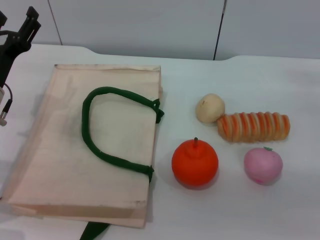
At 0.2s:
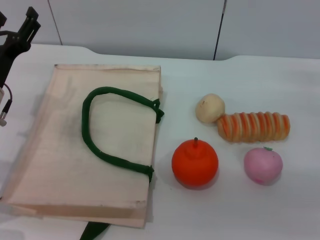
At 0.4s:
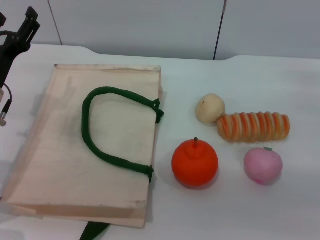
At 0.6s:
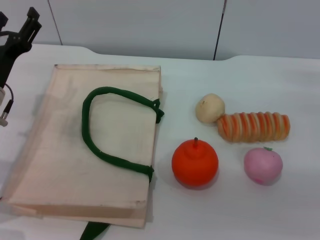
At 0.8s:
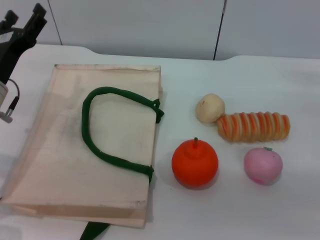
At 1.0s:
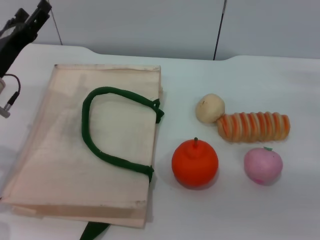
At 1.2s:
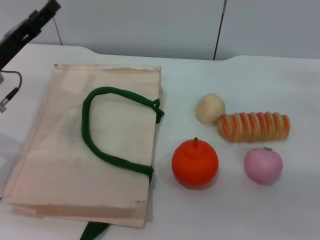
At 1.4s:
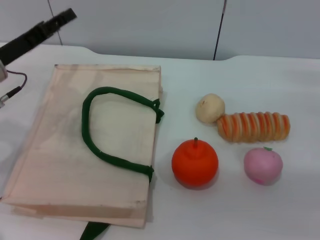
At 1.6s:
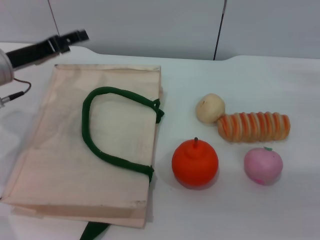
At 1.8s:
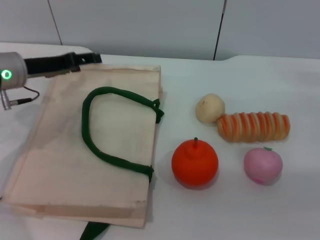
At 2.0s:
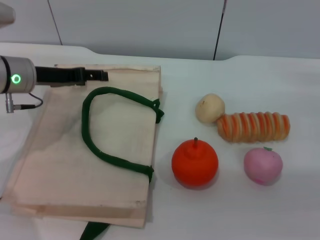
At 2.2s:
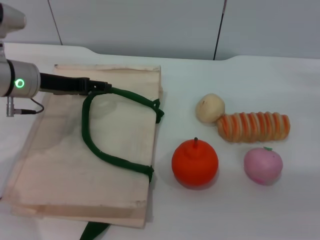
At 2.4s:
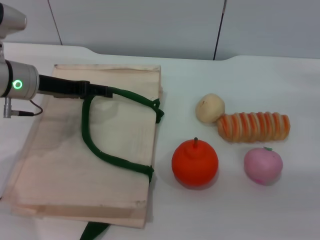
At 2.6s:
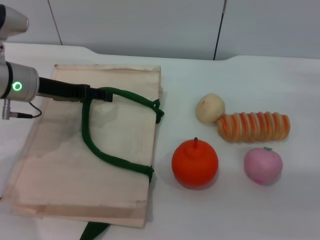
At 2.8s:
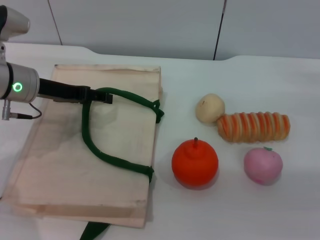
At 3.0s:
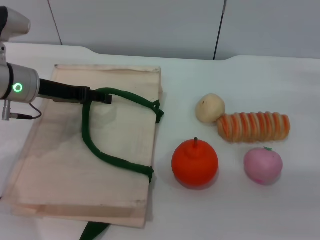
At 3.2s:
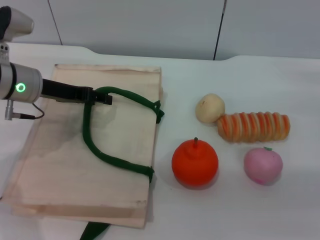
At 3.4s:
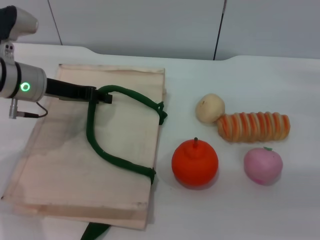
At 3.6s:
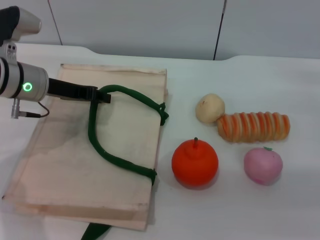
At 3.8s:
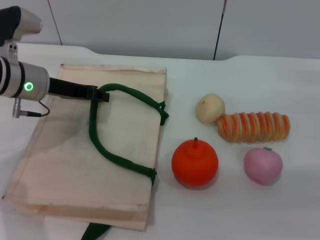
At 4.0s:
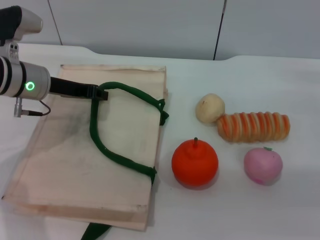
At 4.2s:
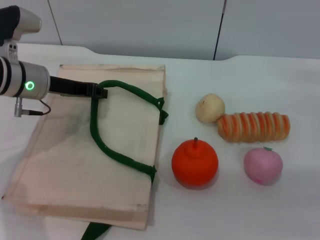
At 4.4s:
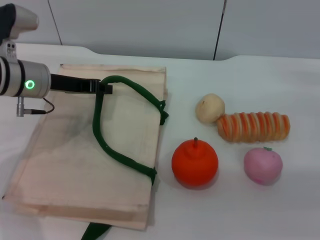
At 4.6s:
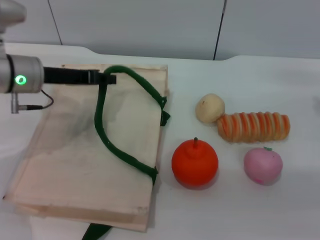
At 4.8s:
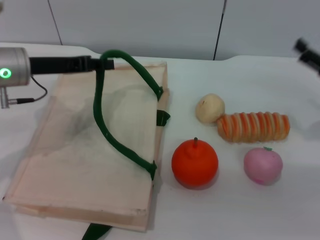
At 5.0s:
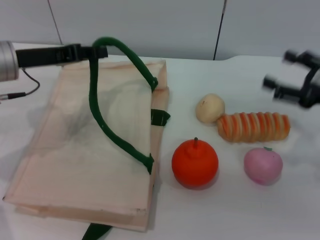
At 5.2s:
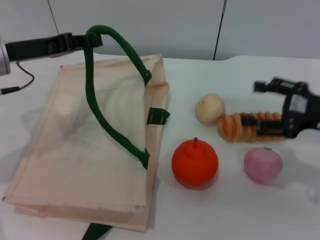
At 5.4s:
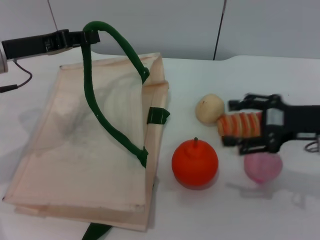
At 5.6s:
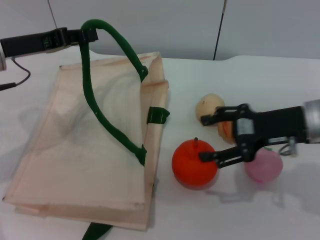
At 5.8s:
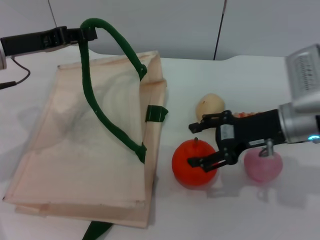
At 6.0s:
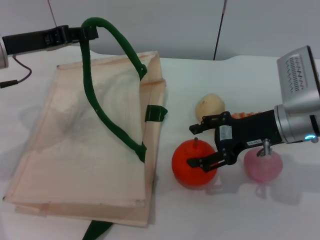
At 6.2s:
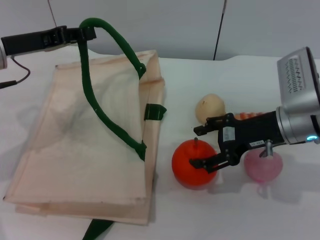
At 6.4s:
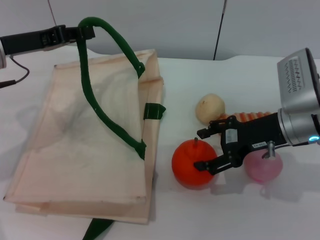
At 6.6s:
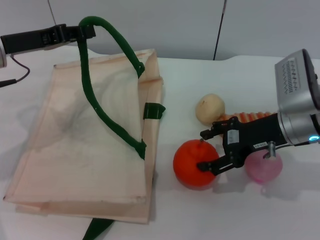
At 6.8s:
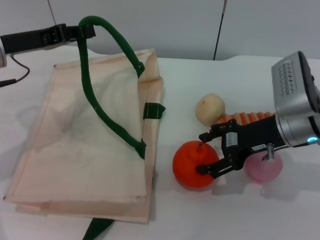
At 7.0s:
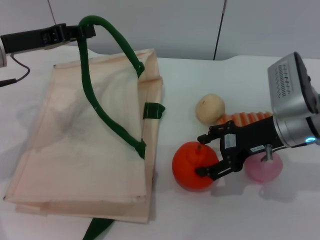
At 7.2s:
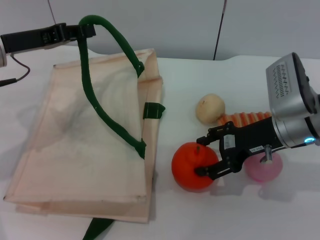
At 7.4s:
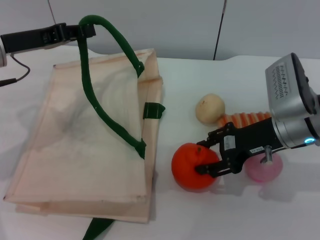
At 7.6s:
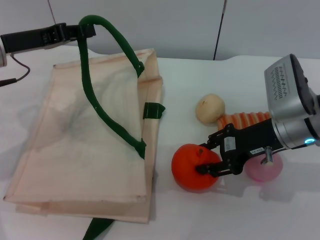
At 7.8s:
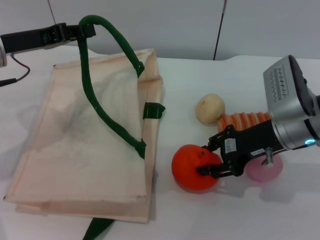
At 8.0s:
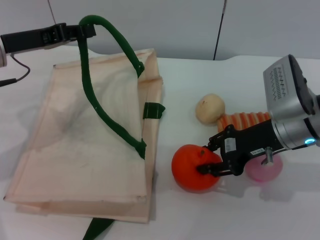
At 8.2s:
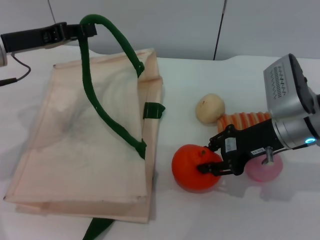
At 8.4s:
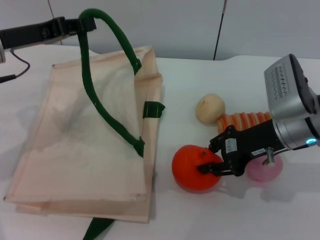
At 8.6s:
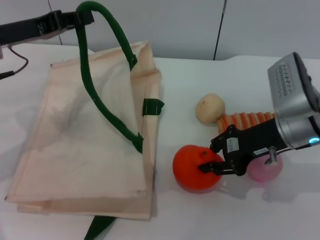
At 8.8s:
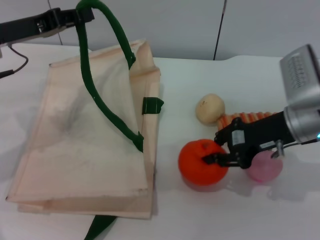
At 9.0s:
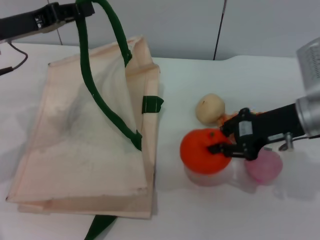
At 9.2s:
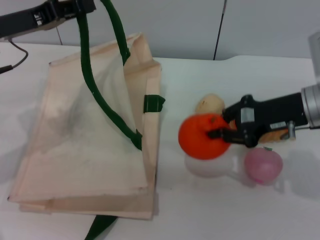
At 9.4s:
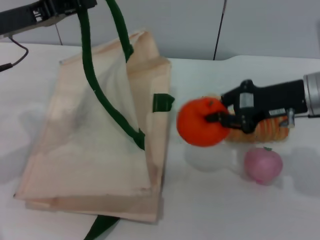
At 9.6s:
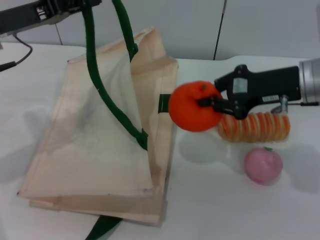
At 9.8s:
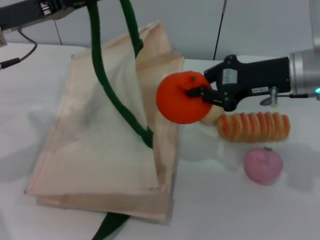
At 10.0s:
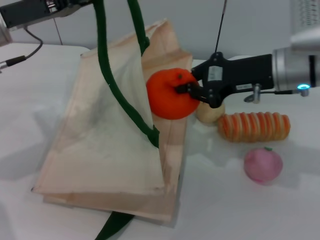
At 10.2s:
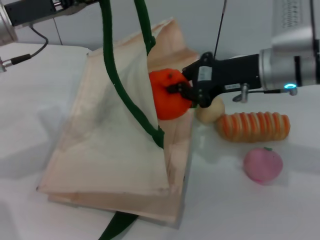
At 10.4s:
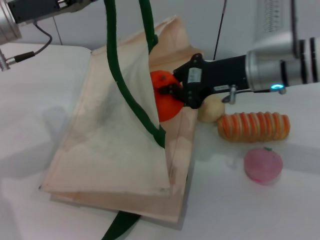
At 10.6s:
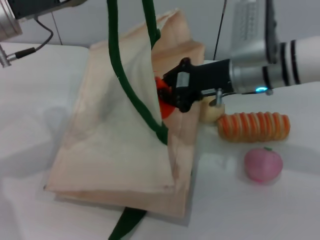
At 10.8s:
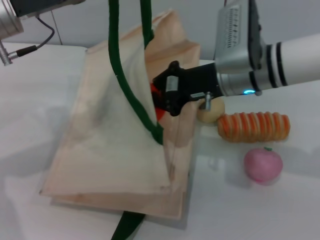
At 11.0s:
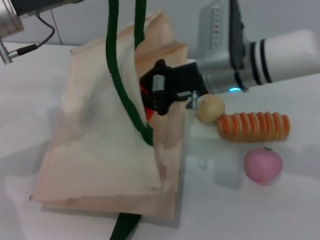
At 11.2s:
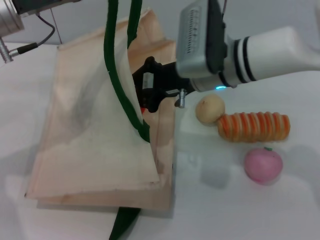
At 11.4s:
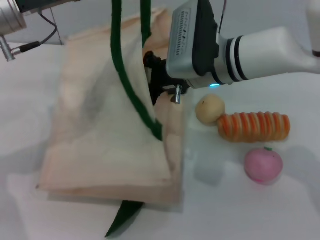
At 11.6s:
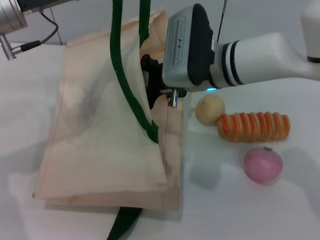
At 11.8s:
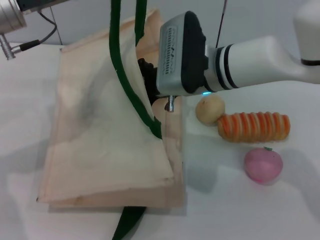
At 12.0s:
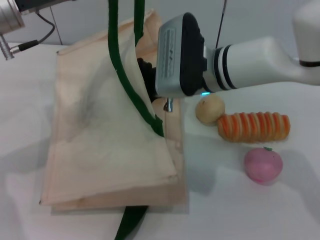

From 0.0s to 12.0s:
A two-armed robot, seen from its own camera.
Task of the whole recording: pick up the orange and peach from the table and place it in the white handbag.
Step, from 0.0s to 4.6s: Lift the woven bag with the left gripper to open it.
Step, from 4.8s to 9.0s: Pick up the orange with the right gripper.
From 0.0s to 1.6s: The left gripper changes place by approximately 5 cm.
From 3.0s to 4.4s: The left gripper closes up.
From 4.4s to 6.0s: The left gripper moves about 5 cm, while the right gripper is displaced to the left by some 15 cm.
From 6.0s to 7.6s: The grippers move only a little.
From 7.6s to 9.0s: The right gripper closes up.
From 9.0s to 10.4s: The right gripper shifts approximately 5 cm to the left.
From 10.4s to 12.0s: The right gripper goes approximately 10 cm to the left.

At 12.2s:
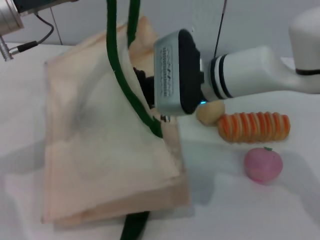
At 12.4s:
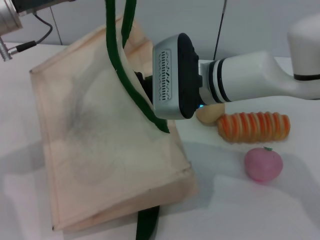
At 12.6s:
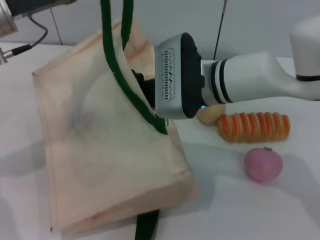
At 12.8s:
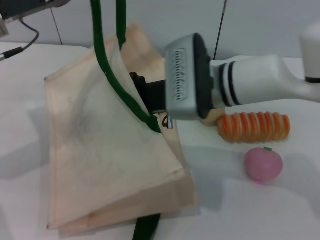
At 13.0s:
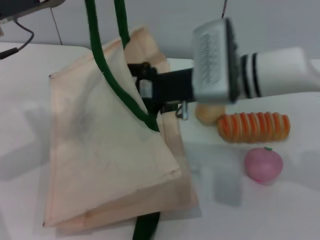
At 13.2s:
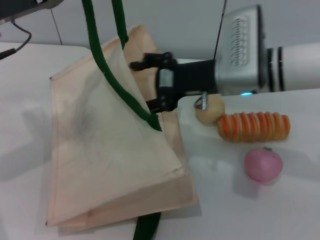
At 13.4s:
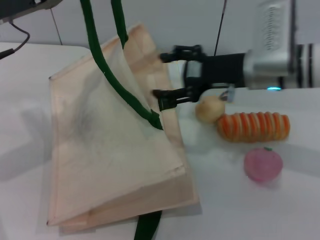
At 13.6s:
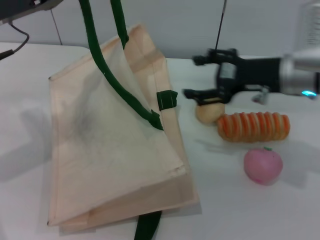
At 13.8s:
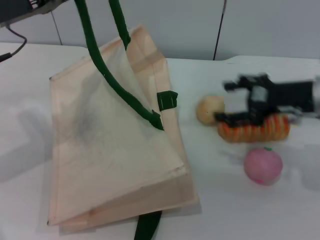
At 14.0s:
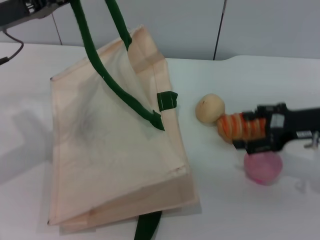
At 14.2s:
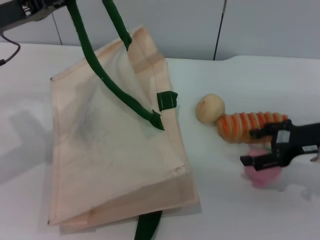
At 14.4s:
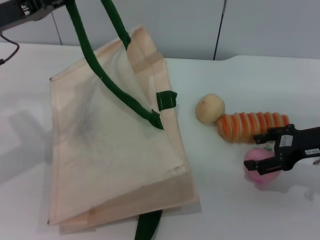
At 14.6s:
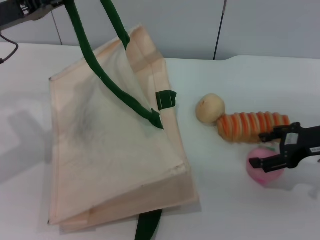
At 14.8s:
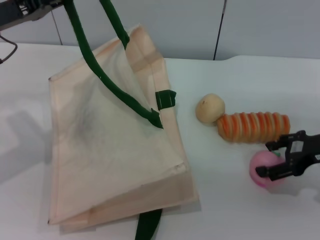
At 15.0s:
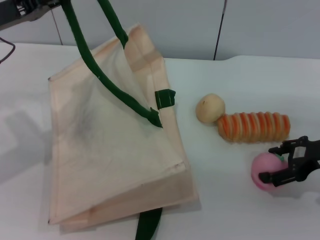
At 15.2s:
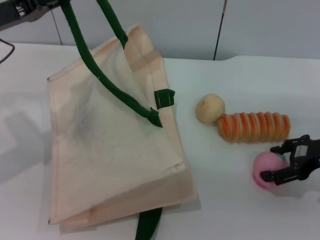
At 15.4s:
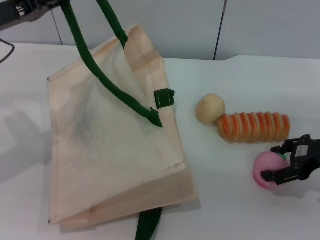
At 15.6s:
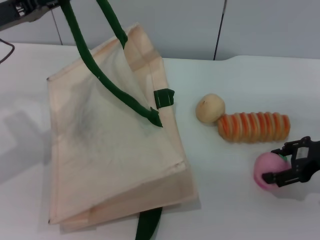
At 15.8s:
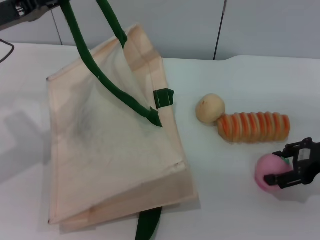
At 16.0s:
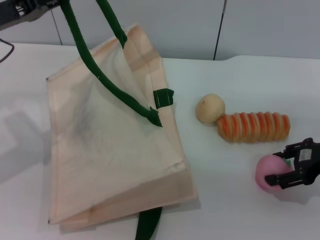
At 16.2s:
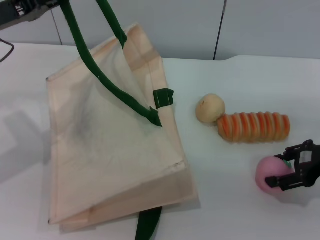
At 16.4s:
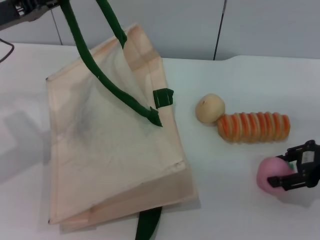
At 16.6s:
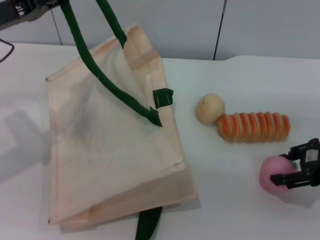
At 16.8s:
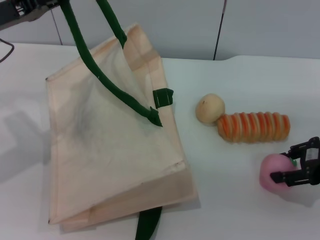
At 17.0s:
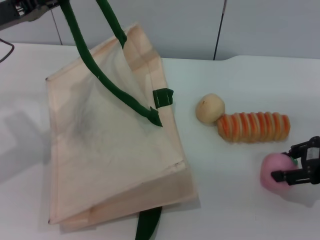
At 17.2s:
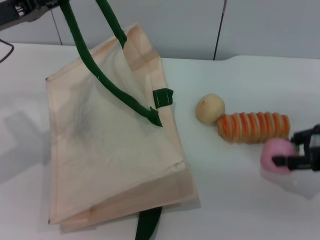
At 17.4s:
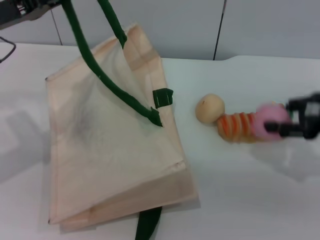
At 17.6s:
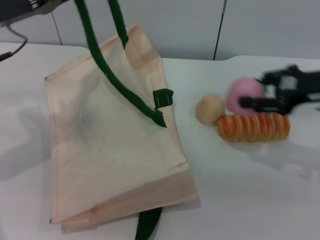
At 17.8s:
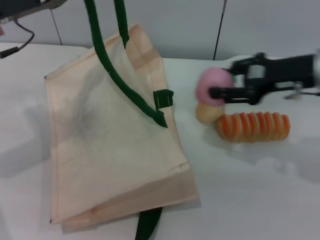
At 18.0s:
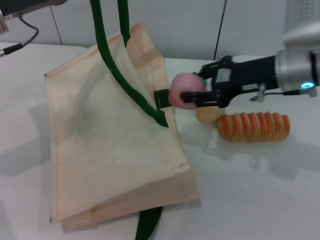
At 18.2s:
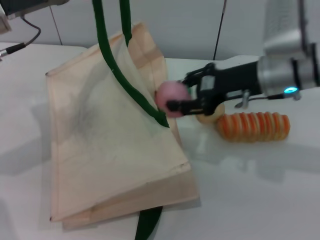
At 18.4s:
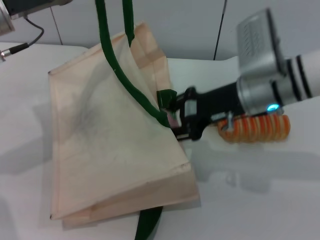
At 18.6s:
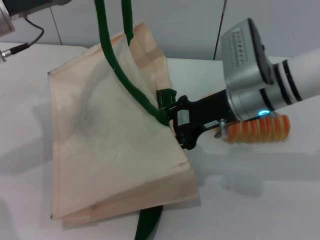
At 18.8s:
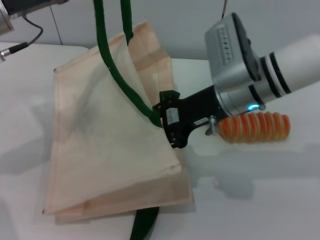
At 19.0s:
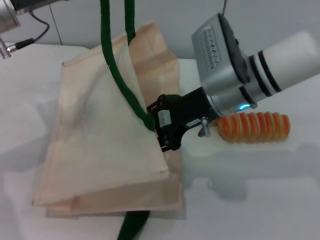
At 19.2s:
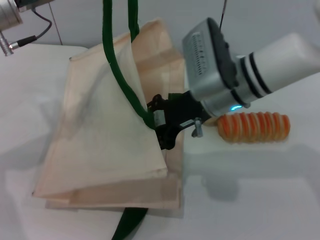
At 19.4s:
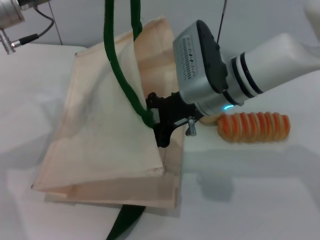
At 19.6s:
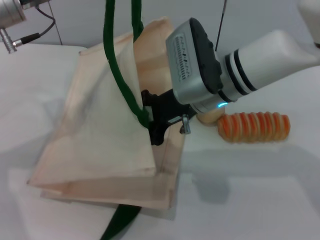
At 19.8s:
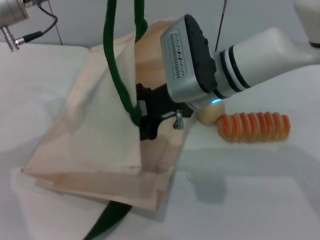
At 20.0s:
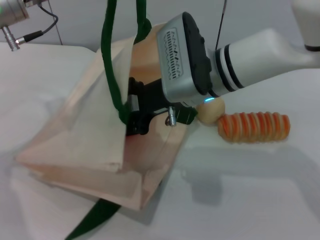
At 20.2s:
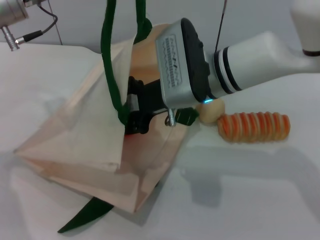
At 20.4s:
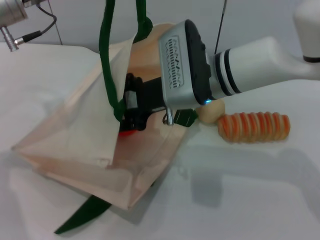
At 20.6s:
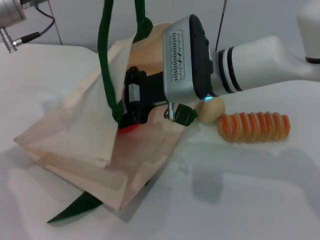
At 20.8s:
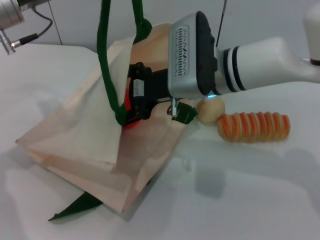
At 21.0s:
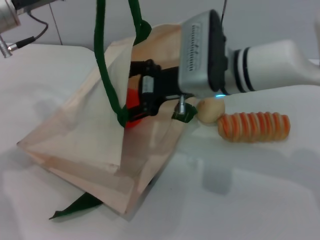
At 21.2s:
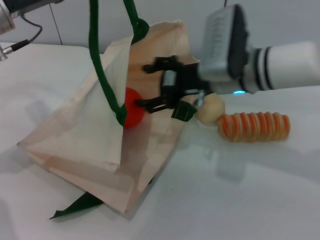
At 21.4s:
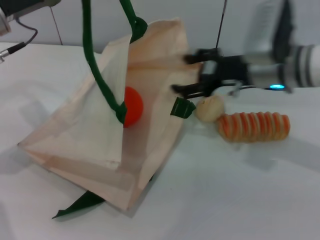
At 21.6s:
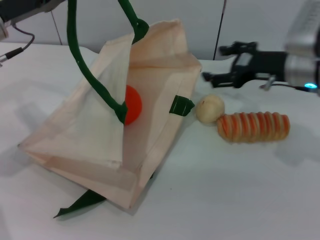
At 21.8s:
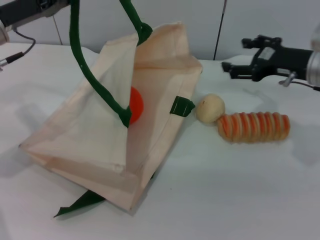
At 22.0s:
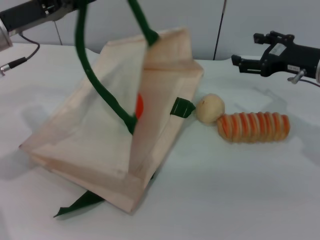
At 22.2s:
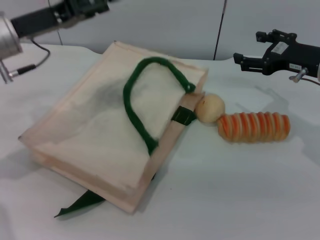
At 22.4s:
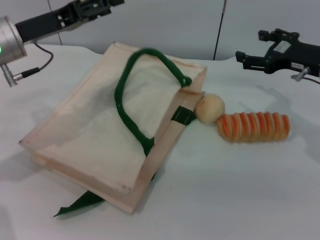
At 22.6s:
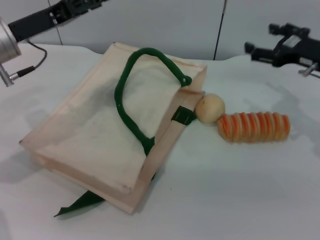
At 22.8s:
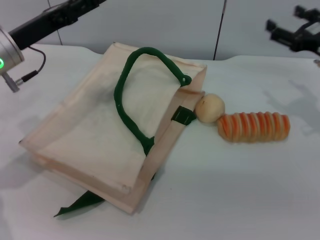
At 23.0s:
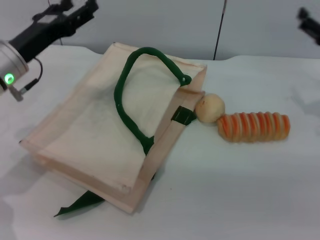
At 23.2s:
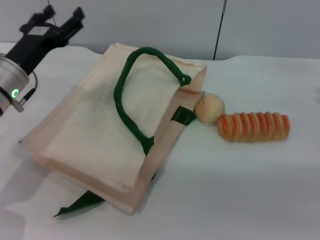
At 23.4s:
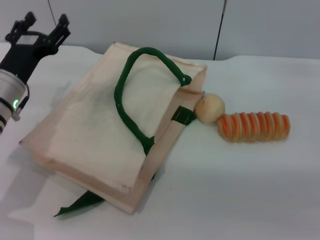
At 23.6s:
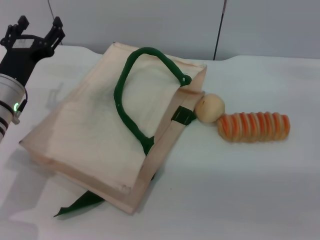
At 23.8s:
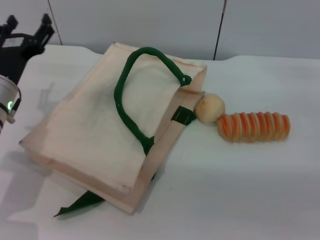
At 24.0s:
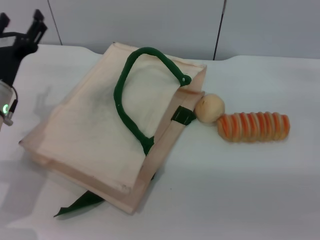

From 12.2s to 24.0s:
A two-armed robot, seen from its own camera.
Task of the whole recording: pick up the orange and peach from the table and place it in the white handbag.
Step, from 14.0s to 17.4s: Pick up the peach with the right gripper.
Step, from 17.6s to 21.4s: Place the peach into the woven bag with the right gripper.
Step, from 21.6s to 22.8s: Lower the woven bag with the left gripper to close it.
From 12.2s to 13.6s: The right gripper moves to the right, roughly 15 cm, and opens its fingers.
From 13.6s to 15.2s: The right gripper heads to the right and backward, covering some 10 cm.
From 15.2s to 16.6s: The grippers move only a little.
From 16.6s to 18.2s: The right gripper is displaced to the left and forward by approximately 15 cm.
From 18.2s to 19.6s: The right gripper goes about 10 cm to the left.
From 19.6s to 21.0s: The right gripper opens.
From 21.0s to 22.6s: The right gripper is displaced to the right by roughly 20 cm. Meanwhile the left gripper opens its fingers.
From 22.6s to 24.0s: The left gripper shifts about 10 cm downward; the right gripper moves to the right, backward and downward, roughly 10 cm.
